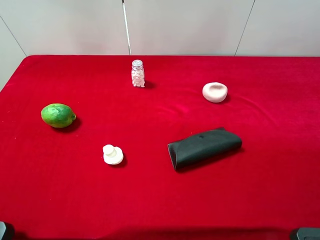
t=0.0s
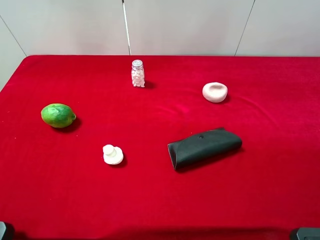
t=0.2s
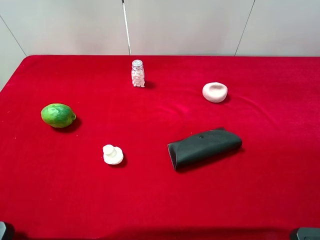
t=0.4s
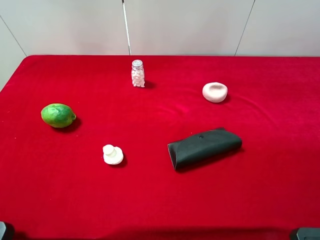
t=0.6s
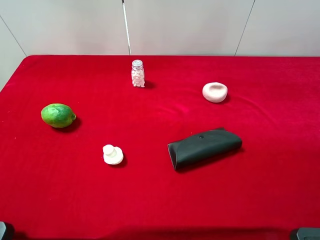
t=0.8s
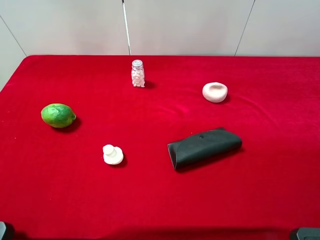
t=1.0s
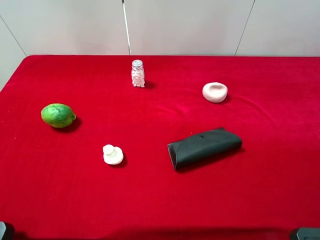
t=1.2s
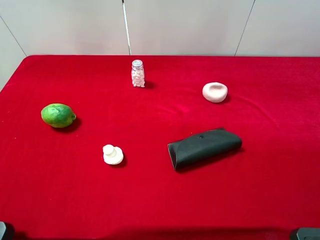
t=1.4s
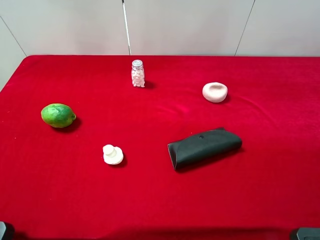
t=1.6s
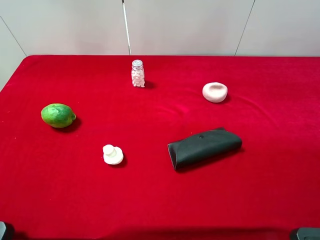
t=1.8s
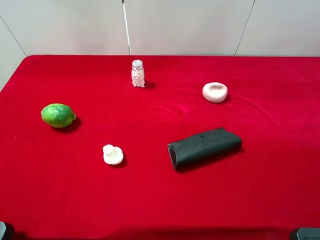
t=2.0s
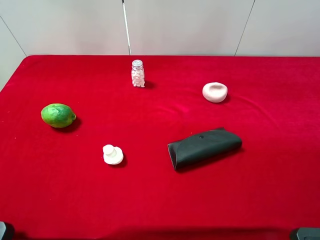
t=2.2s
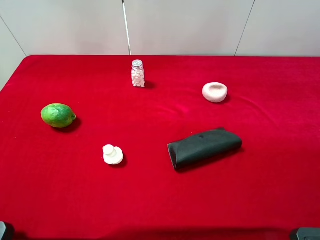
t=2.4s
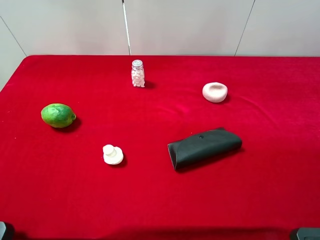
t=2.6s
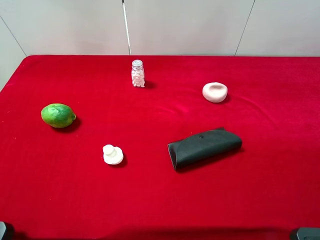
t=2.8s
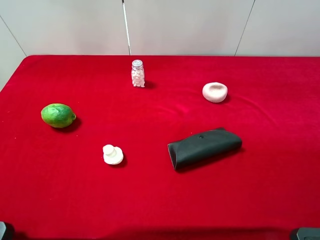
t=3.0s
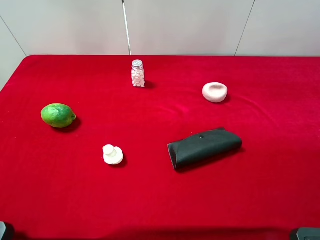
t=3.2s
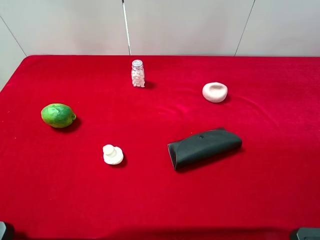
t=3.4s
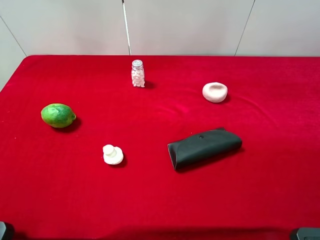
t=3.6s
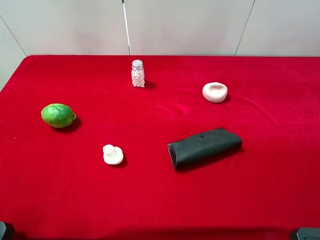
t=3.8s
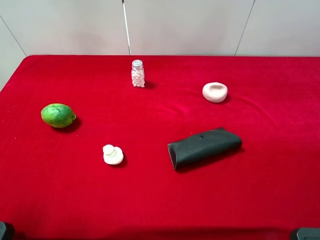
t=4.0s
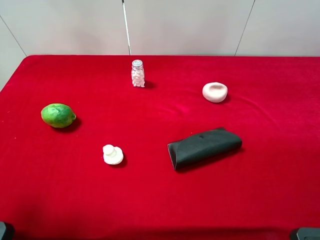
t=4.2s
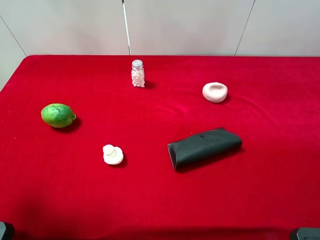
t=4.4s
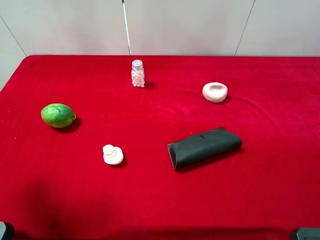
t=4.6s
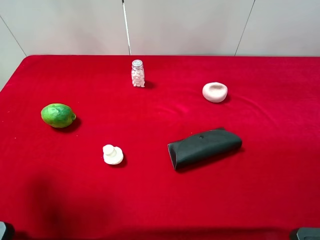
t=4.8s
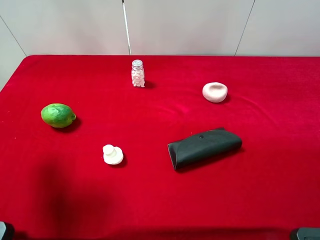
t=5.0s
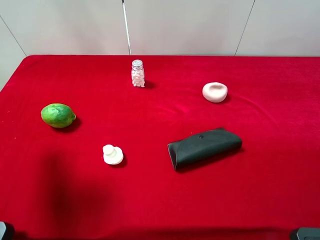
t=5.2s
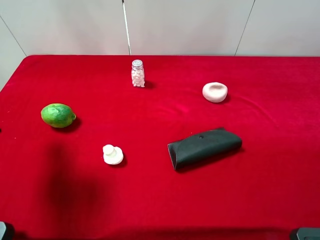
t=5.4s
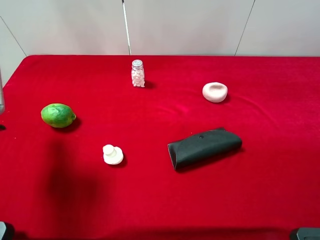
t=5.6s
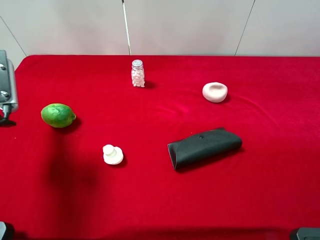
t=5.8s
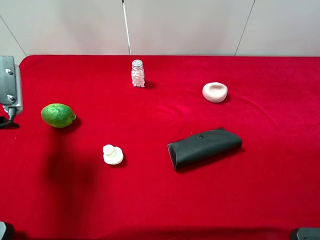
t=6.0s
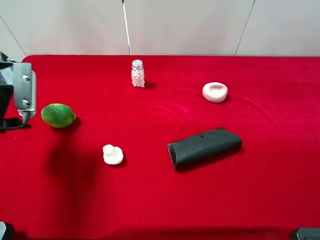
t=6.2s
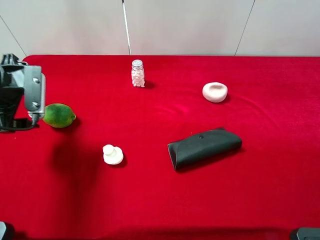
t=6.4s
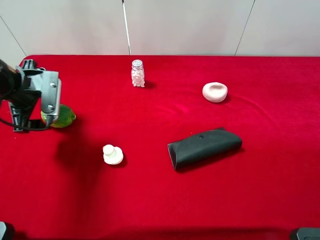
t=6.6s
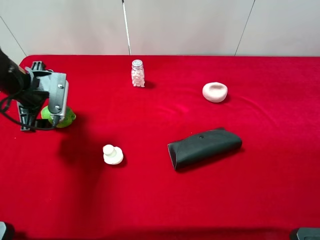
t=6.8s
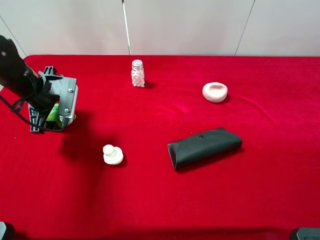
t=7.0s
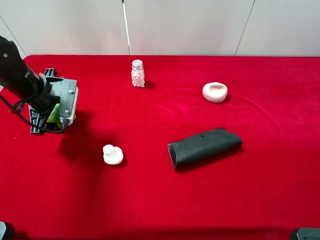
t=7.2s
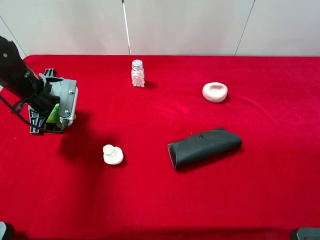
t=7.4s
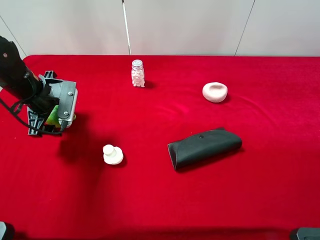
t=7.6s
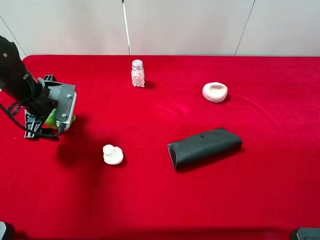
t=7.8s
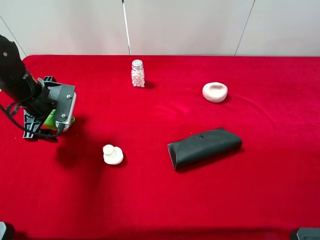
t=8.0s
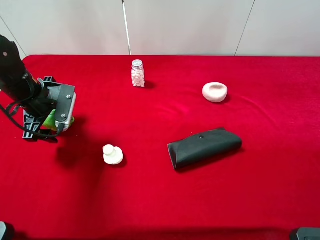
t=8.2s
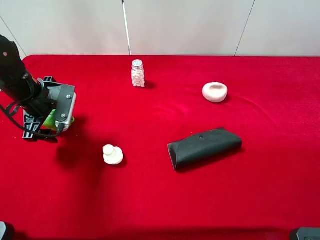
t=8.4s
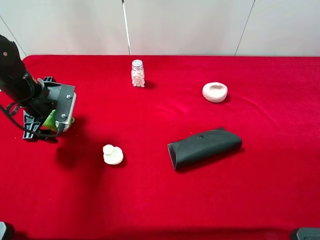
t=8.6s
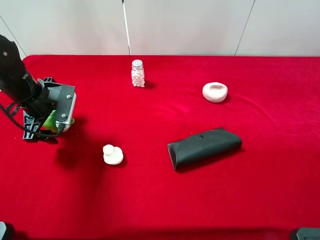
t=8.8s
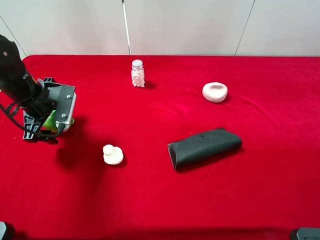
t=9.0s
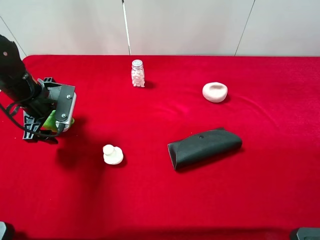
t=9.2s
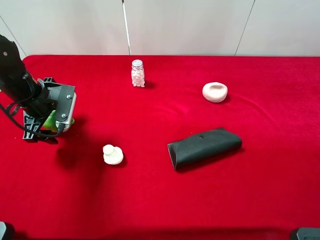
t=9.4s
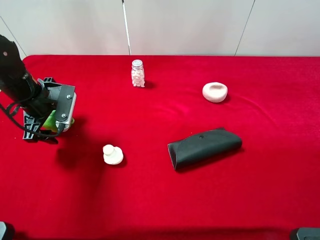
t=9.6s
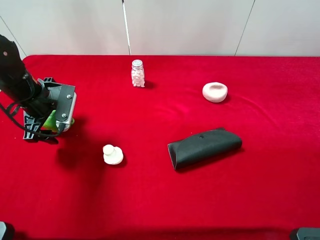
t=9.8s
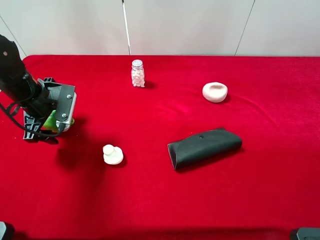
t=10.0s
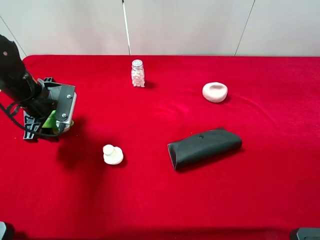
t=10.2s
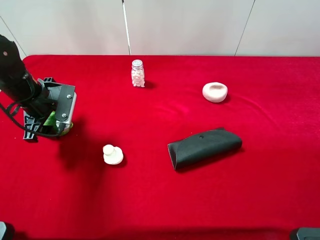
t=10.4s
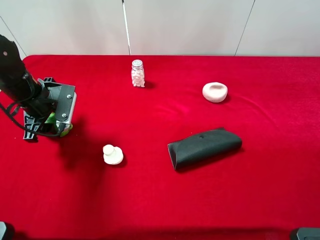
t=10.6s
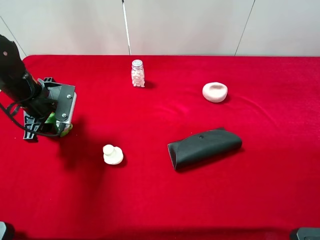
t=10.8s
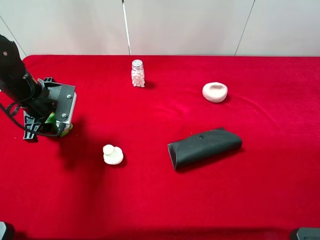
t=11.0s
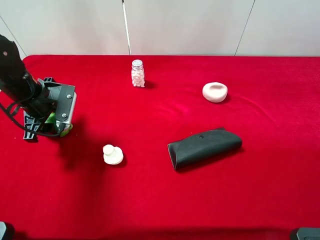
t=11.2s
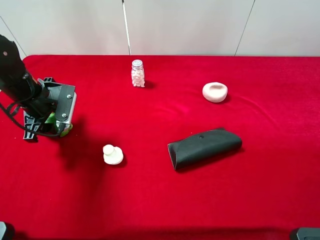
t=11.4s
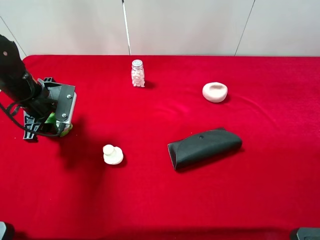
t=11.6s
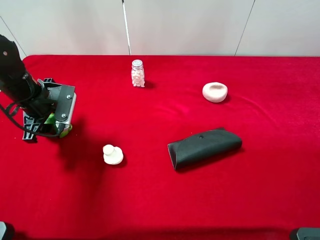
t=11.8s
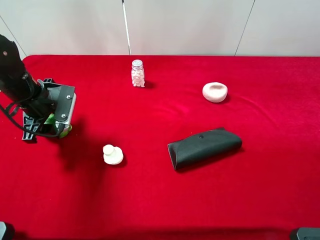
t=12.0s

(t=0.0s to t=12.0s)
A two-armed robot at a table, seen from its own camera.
Task of the whole recording: the gripper move the object.
Step, t=0.0s - t=11.0s: Grasp the lemon with the left gripper.
t=0.0s - t=3.0s: Neither gripper changes place.
t=3.0s - t=4.4s: The left gripper heads forward, covering about 10 cm.
t=4.4s - t=6.0s: The left gripper travels forward and downward by roughly 15 cm.
t=6.0s - t=7.6s: The left gripper shifts approximately 10 cm downward, to the right and forward.
t=7.6s - t=9.0s: The grippers make only small movements.
t=10.4s - t=12.0s: The two grippers keep their place.

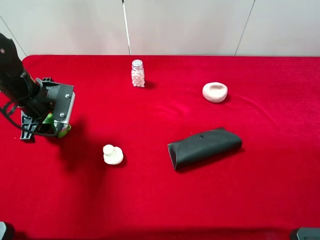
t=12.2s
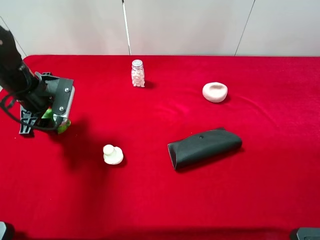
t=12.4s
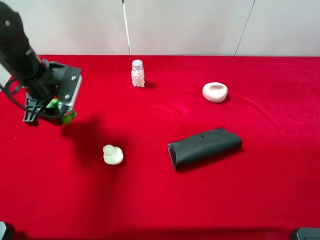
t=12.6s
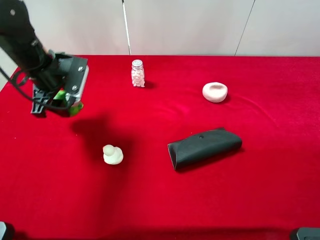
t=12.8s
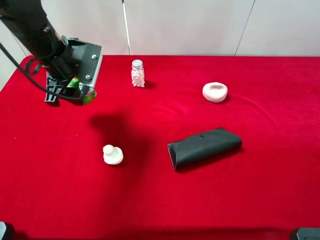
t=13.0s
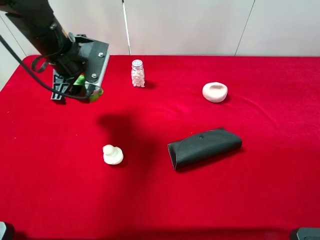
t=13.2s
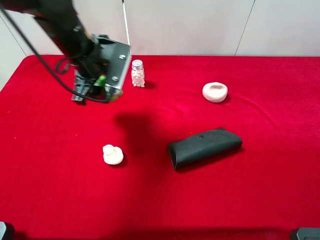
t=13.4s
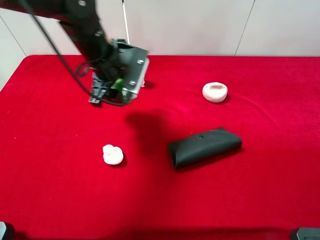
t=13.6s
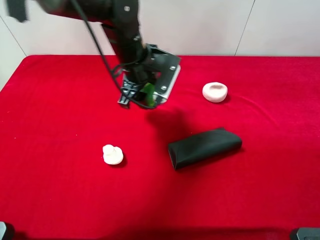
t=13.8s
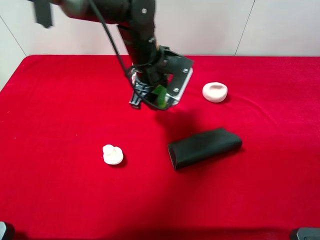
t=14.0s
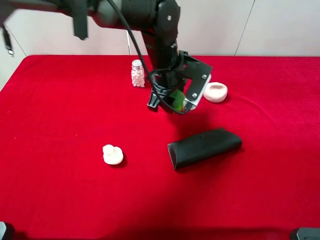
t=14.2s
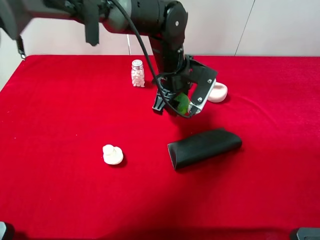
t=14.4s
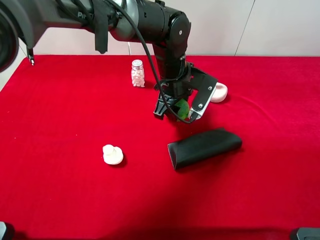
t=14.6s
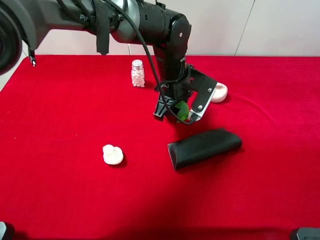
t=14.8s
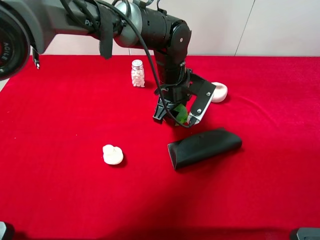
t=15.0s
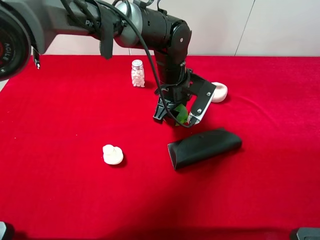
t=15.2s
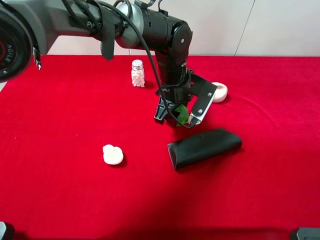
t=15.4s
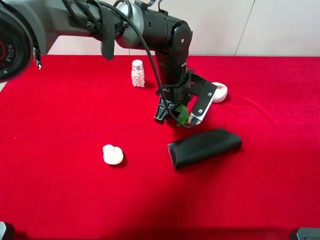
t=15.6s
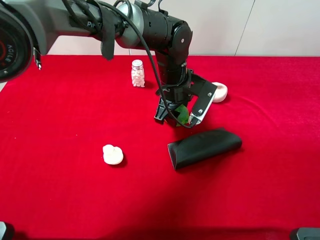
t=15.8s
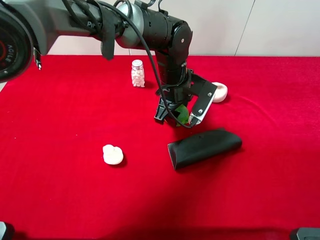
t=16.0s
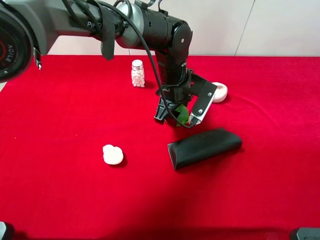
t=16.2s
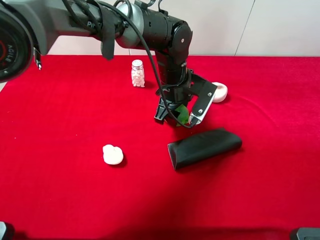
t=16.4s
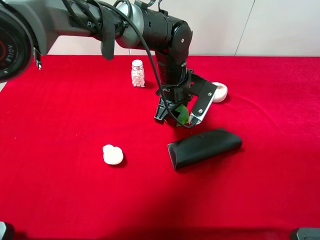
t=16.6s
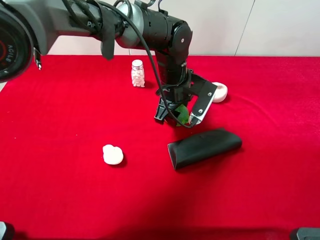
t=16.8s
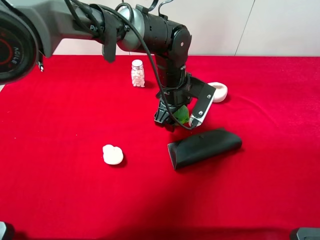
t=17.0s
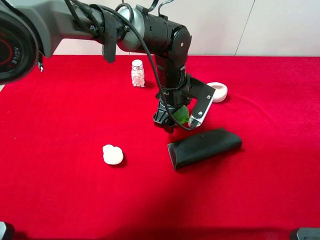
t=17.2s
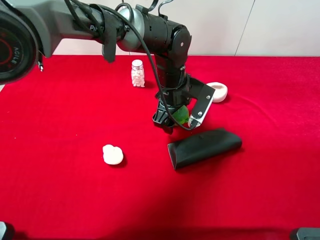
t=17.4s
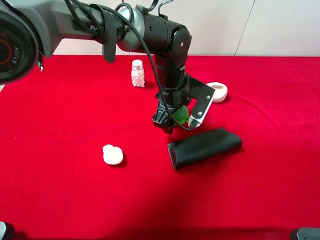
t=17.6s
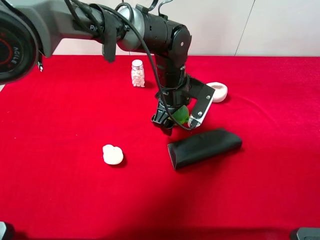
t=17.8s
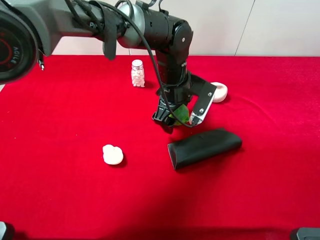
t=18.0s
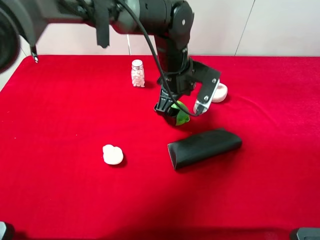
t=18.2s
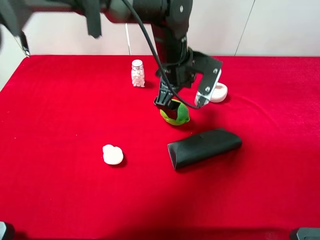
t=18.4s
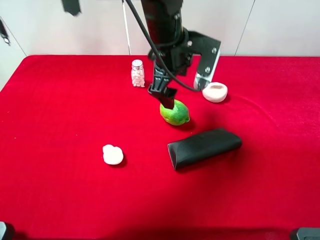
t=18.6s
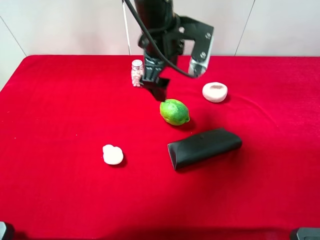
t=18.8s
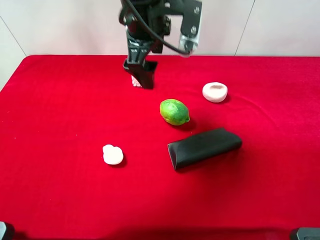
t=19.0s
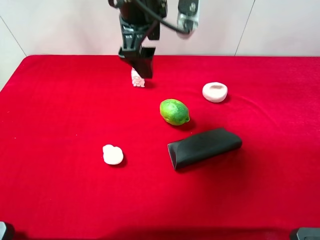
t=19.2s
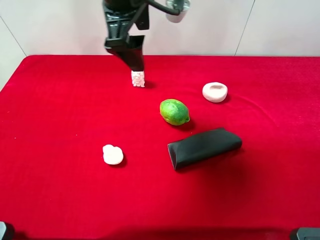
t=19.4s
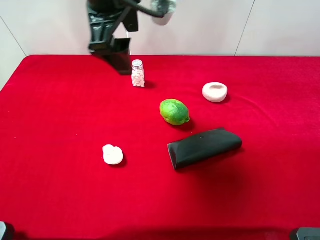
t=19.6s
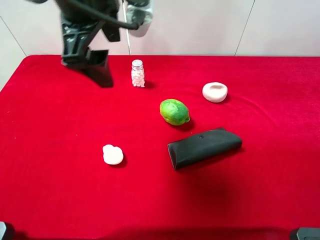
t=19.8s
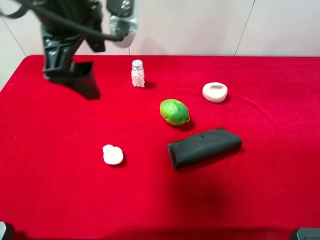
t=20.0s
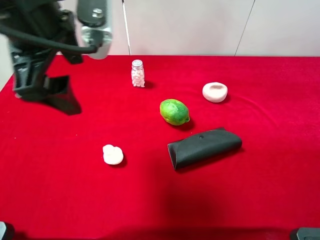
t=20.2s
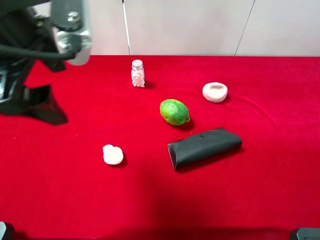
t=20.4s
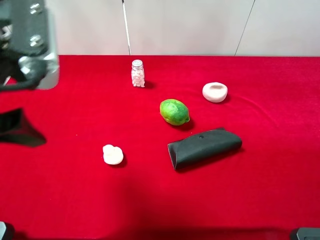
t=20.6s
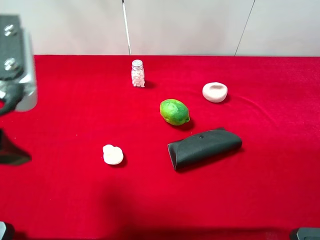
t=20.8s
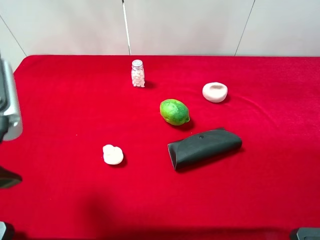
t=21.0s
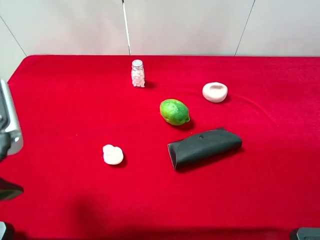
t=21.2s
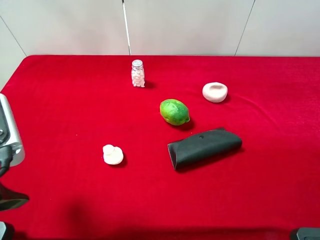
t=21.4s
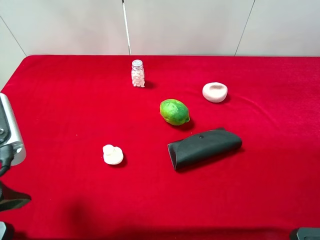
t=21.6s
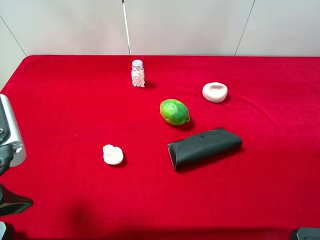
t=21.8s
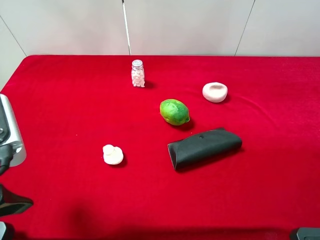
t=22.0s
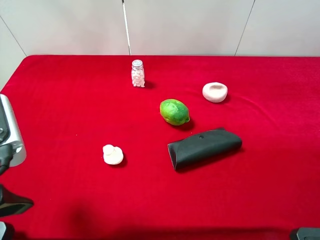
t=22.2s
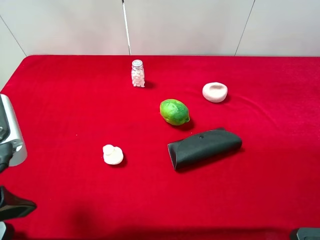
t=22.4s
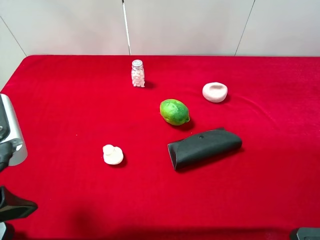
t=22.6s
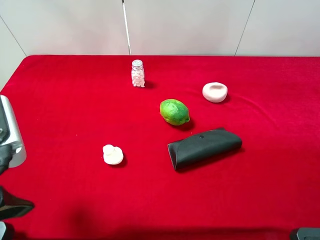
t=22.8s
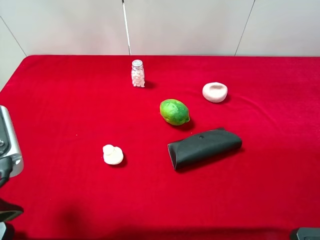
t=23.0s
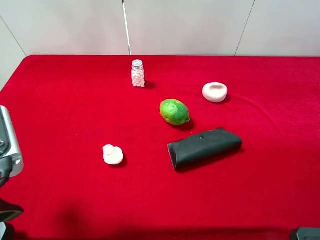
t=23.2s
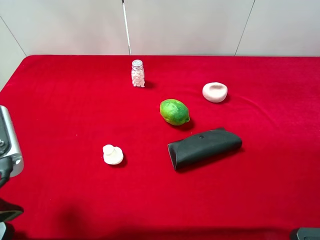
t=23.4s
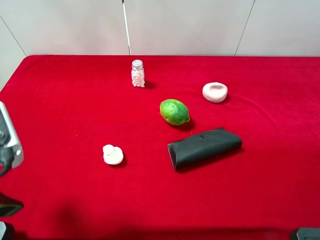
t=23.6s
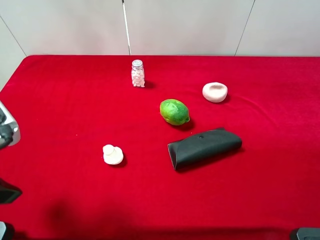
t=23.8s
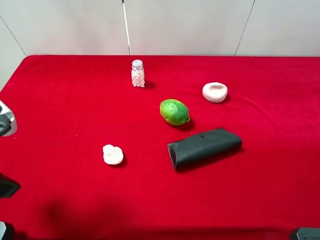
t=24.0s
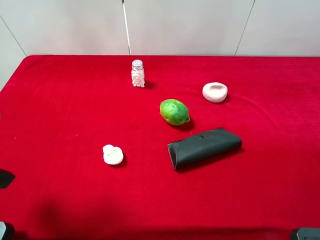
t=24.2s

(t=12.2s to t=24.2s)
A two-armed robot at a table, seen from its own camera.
Task of the whole recording: the gripper move the object.
Step, t=12.2s - t=18.6s: Place the lemon on the table with the left gripper.
t=12.2s - t=13.8s: The left gripper is displaced to the right by some 20 cm.
t=13.8s - t=15.2s: The left gripper travels to the right and downward by about 10 cm.
t=15.2s - t=16.6s: The two grippers keep their place.
t=16.6s - t=18.2s: The left gripper opens up.
t=18.2s - t=19.8s: The left gripper is displaced upward, to the left and backward by some 25 cm.
t=19.8s - t=21.2s: The left gripper is displaced backward, to the left and downward by roughly 20 cm.
t=21.2s - t=22.6s: There are only small adjustments of the grippers.
t=22.6s - t=24.2s: The left gripper moves to the left, approximately 5 cm.
